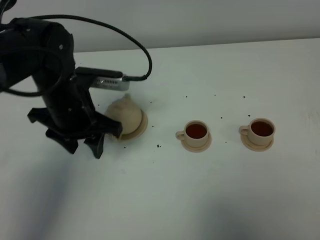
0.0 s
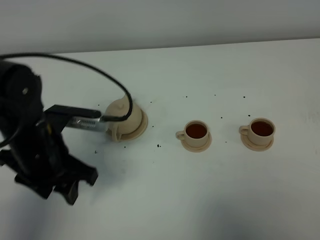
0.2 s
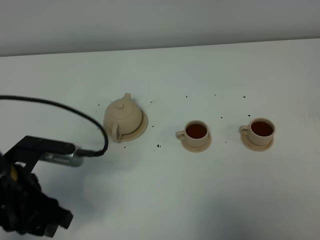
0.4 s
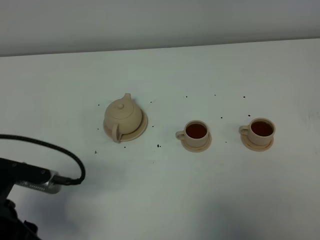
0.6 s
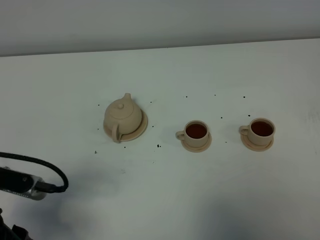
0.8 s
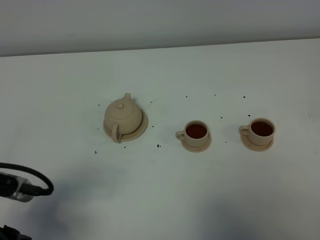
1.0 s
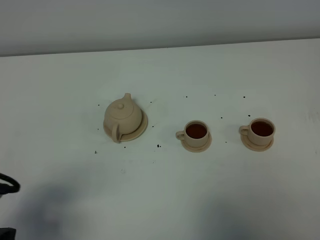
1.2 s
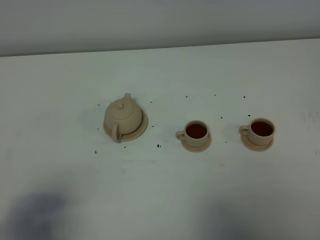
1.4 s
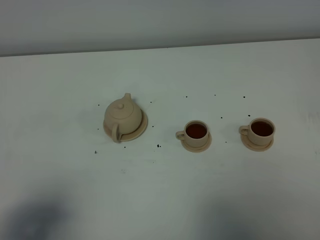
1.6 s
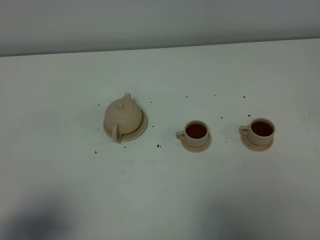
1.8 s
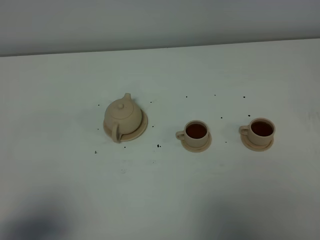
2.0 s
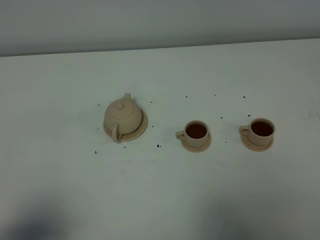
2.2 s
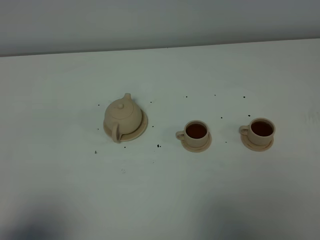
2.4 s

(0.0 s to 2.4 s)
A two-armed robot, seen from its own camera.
Task of the whole recording: grasp the brown teapot and pour the tea into the two brown teacups one by one, put the brown teapot back in its original place.
0.0 s - 1.2 s: The left gripper is displaced backward and to the left by about 25 cm.
1.2 s - 2.4 s: The left gripper travels backward by some 10 cm.

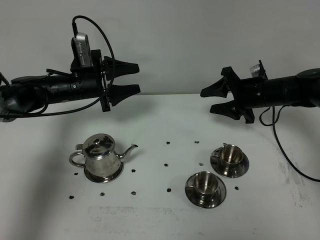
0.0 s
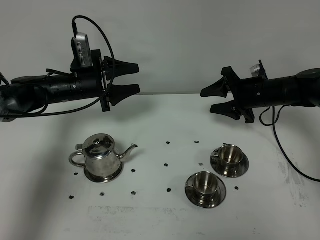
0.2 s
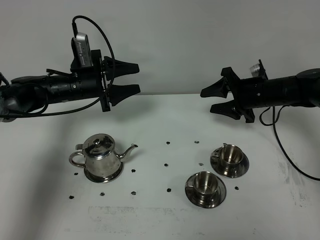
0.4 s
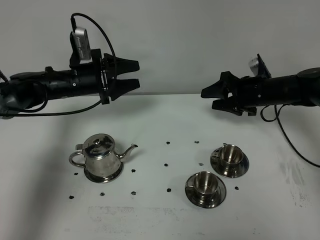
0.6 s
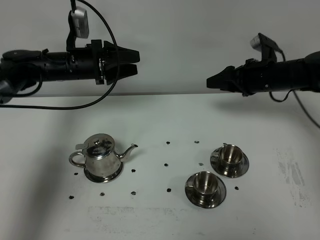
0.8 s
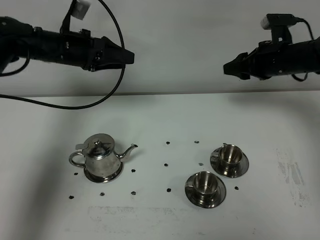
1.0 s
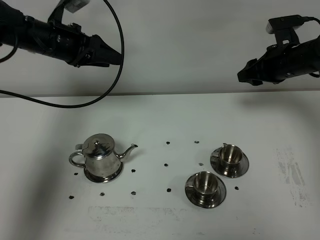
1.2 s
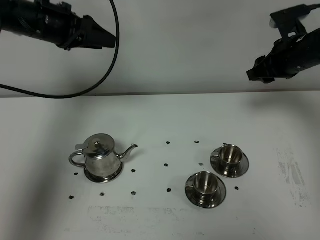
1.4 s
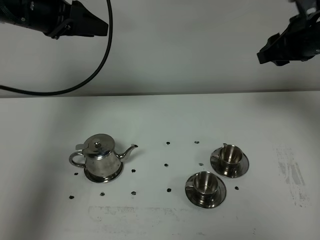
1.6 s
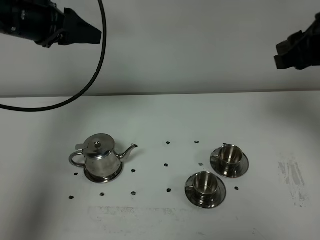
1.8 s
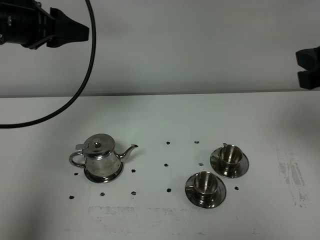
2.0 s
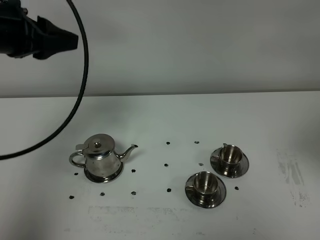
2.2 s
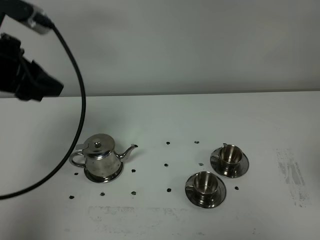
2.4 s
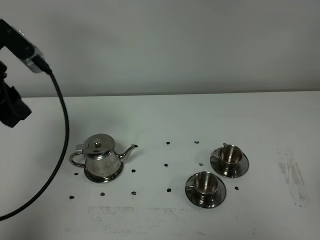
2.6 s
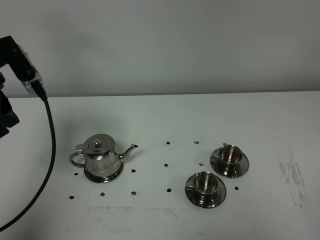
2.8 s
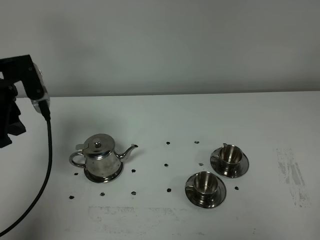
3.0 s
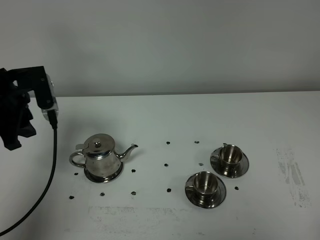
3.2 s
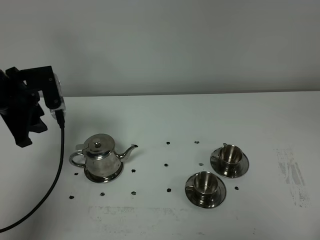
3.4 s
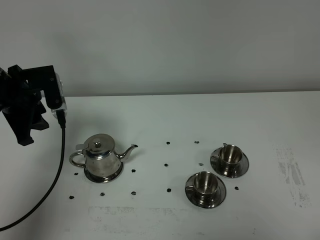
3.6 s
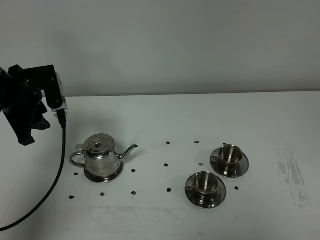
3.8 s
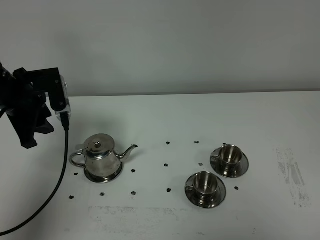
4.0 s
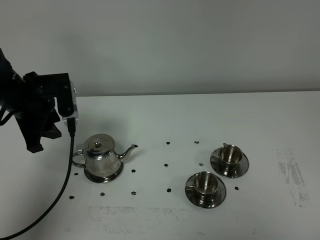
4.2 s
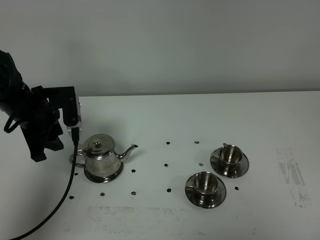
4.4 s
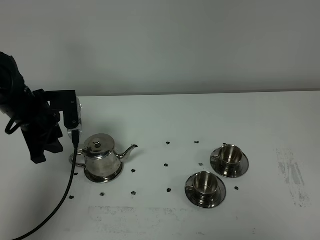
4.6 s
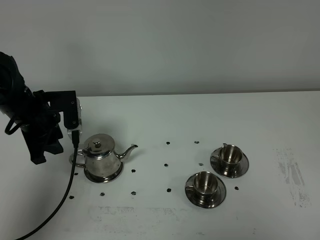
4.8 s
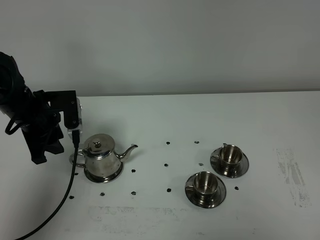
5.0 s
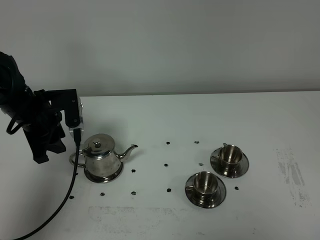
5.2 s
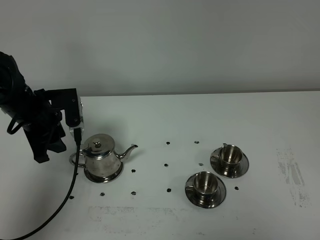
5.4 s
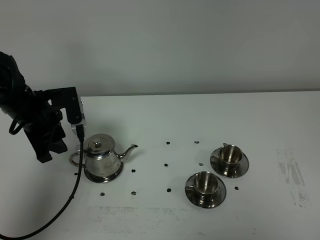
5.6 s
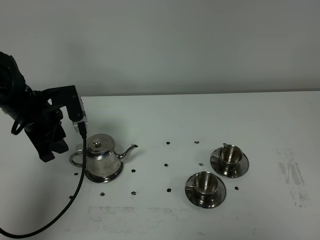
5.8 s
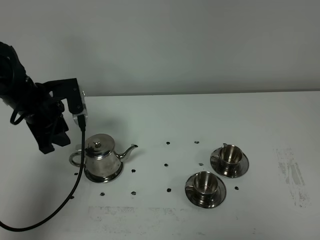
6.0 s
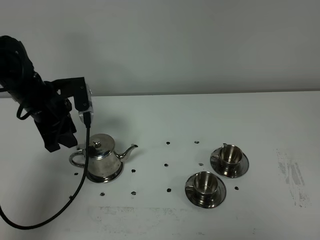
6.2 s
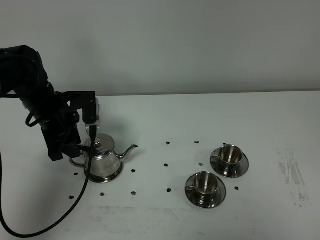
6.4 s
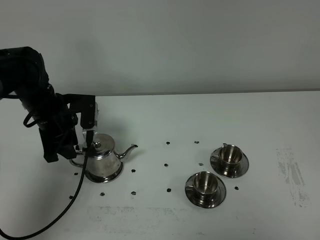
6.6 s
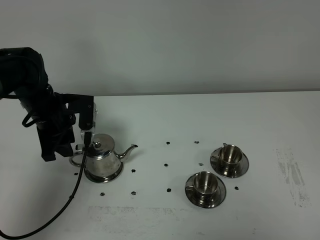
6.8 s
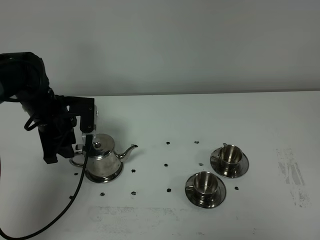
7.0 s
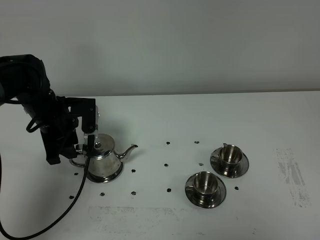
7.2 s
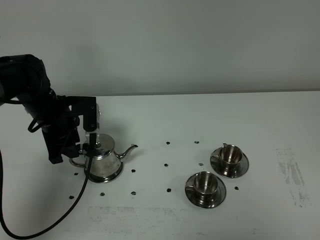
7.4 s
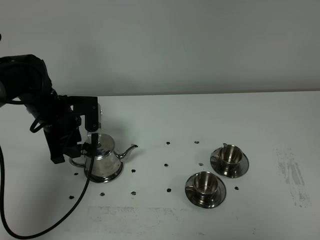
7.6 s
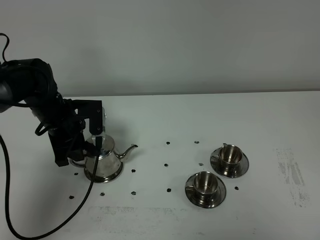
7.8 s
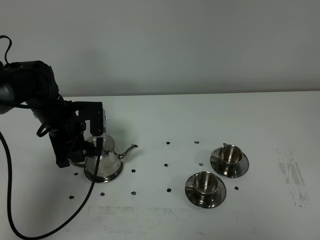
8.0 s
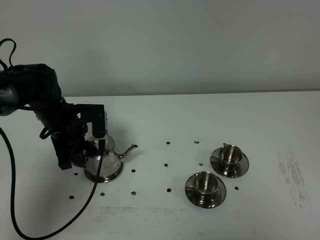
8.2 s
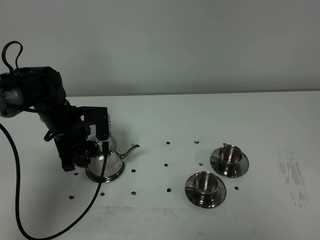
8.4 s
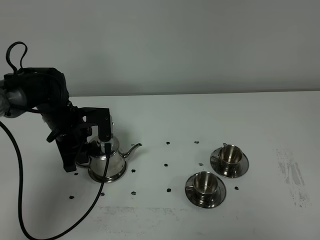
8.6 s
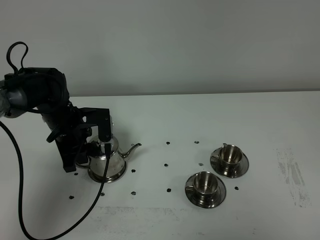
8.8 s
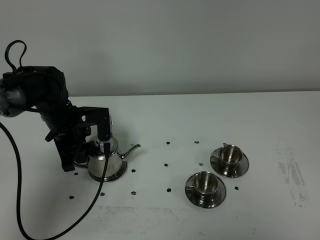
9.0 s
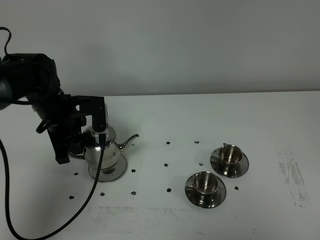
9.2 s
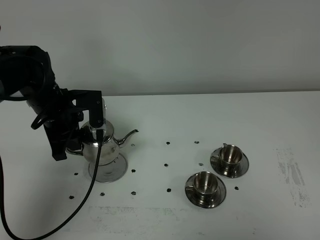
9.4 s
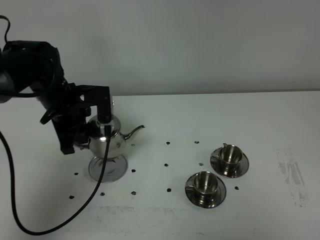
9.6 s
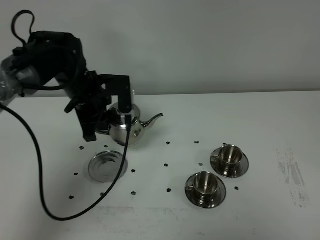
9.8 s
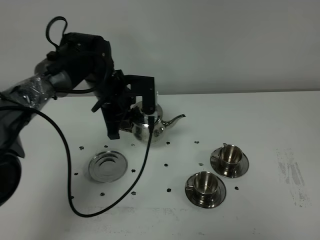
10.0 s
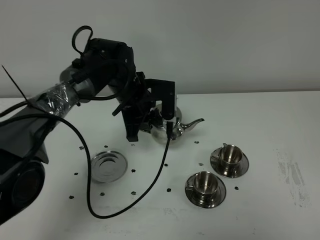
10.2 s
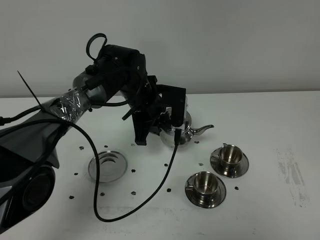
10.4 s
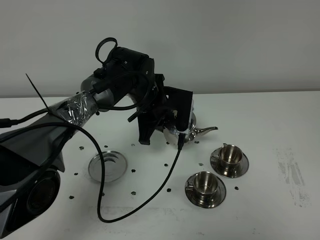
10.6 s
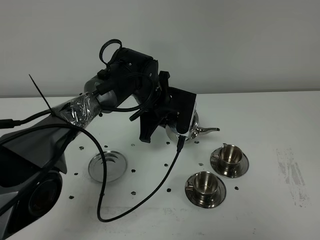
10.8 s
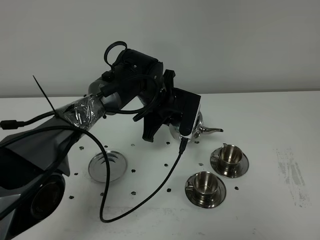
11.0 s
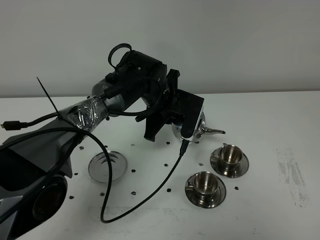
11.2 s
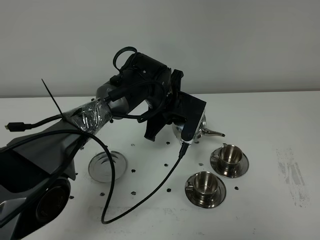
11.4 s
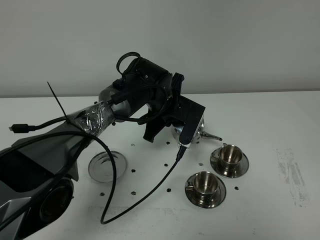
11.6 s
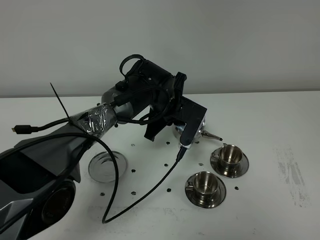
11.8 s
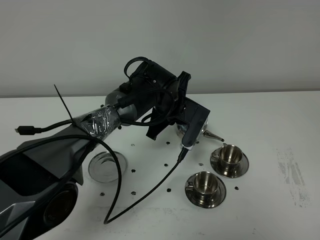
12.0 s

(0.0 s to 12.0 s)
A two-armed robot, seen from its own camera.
Task of the whole recording: grasp the stainless steel teapot and pour the tea into the two stainless steel teacups one by one, put the stainless steel teapot back in its original place.
Step, 0.0 s - 9.2 s: Pick up the teapot with the left gripper.
0.0 s - 1.6 s: The left gripper moves upward, some 20 cm; the right gripper travels upward and backward by about 20 cm, and closes.
1.6 s - 3.0 s: The left gripper shifts roughly 15 cm backward, downward and to the left; the right gripper is displaced backward by roughly 40 cm.
3.0 s - 4.4 s: The left gripper is displaced downward by some 10 cm.
4.4 s - 7.6 s: The grippers stay close to where they were, moving slightly.
7.6 s - 9.0 s: The left gripper closes its fingers.
9.0 s - 10.4 s: The left gripper goes about 15 cm to the right.
10.4 s - 12.0 s: The left gripper travels to the right by about 5 cm.

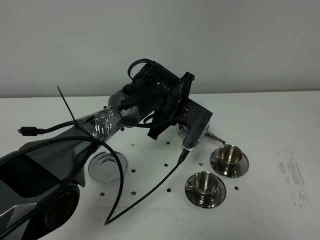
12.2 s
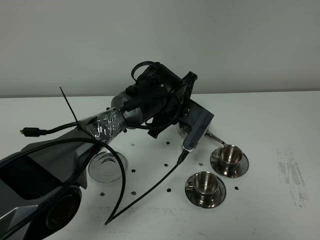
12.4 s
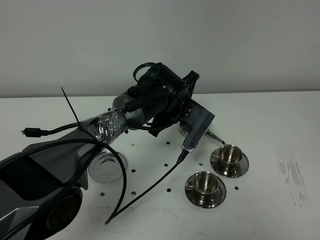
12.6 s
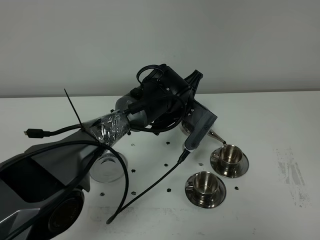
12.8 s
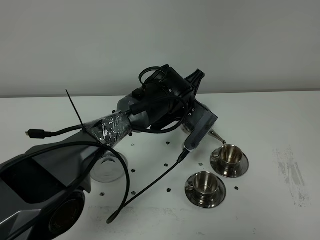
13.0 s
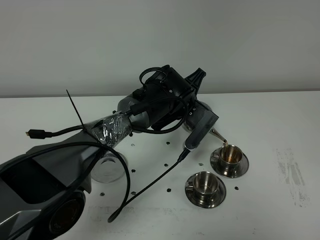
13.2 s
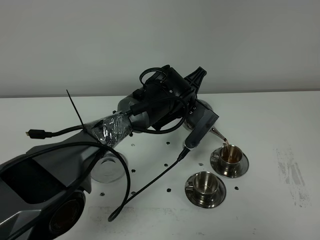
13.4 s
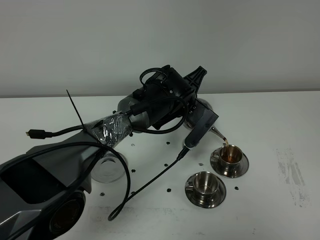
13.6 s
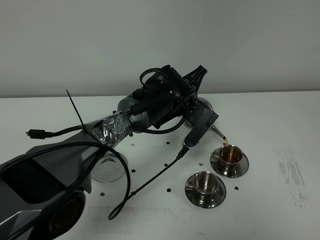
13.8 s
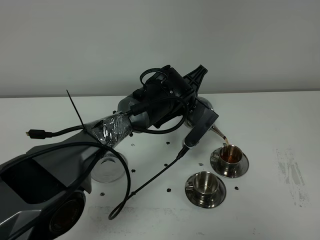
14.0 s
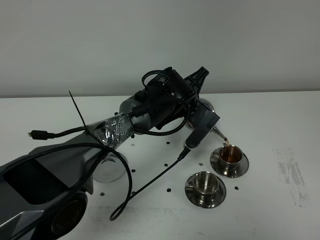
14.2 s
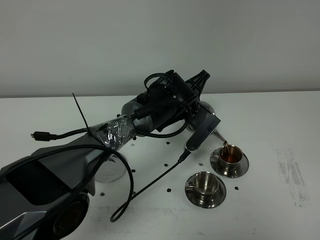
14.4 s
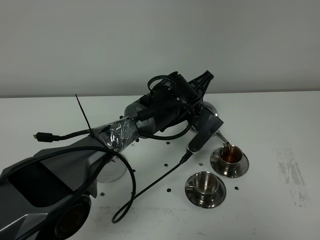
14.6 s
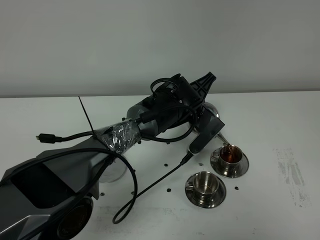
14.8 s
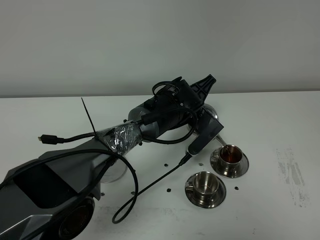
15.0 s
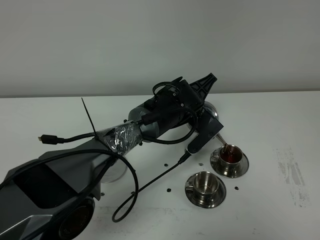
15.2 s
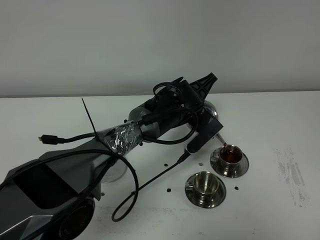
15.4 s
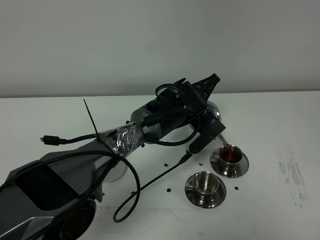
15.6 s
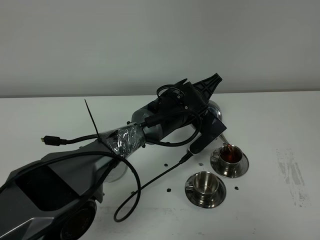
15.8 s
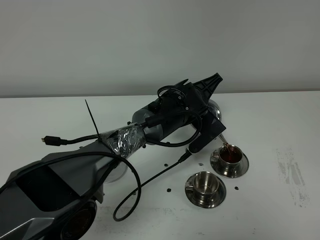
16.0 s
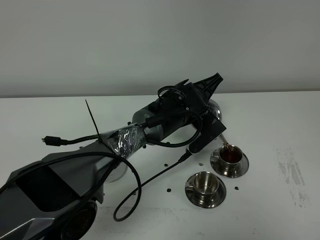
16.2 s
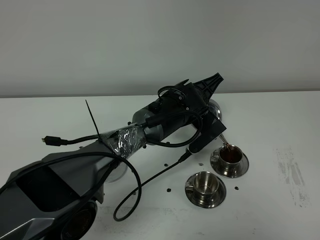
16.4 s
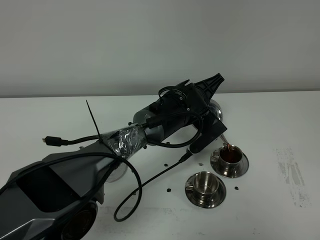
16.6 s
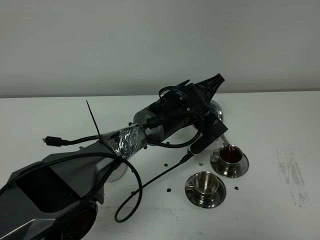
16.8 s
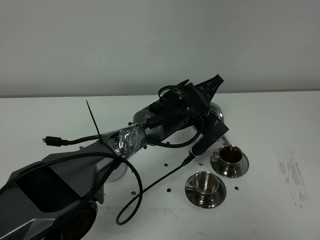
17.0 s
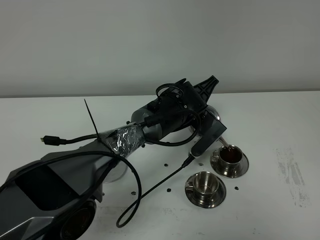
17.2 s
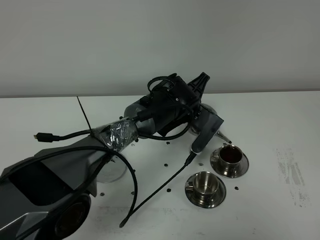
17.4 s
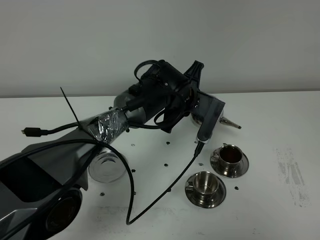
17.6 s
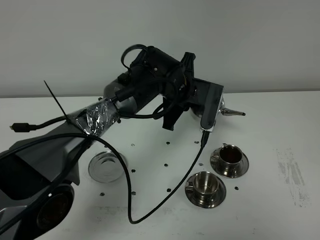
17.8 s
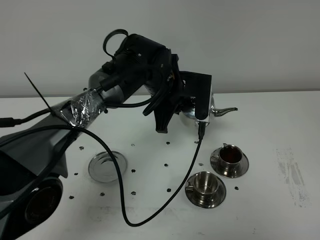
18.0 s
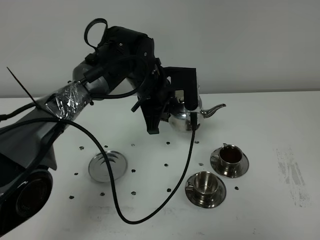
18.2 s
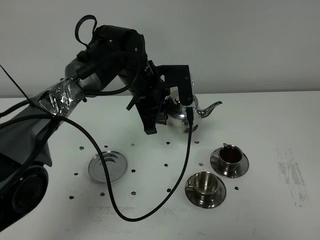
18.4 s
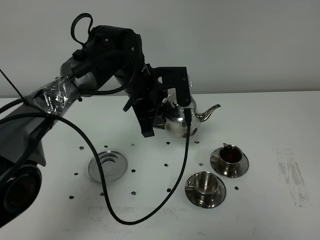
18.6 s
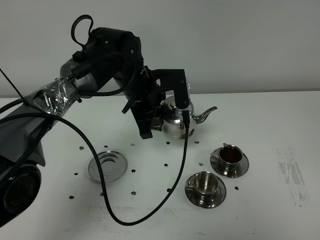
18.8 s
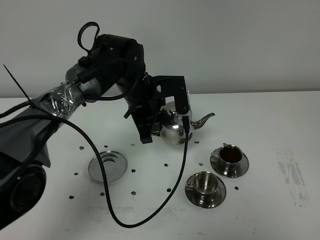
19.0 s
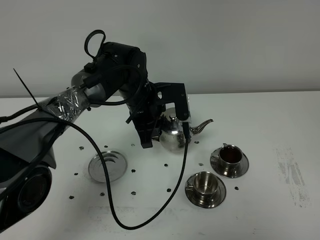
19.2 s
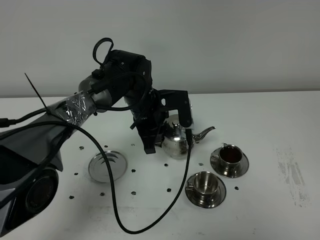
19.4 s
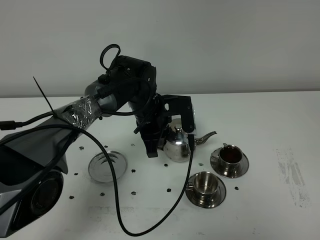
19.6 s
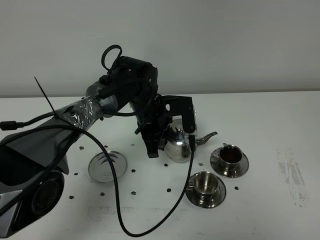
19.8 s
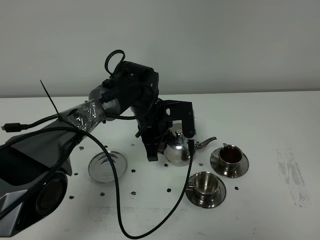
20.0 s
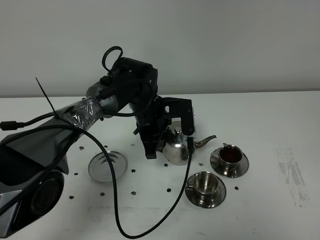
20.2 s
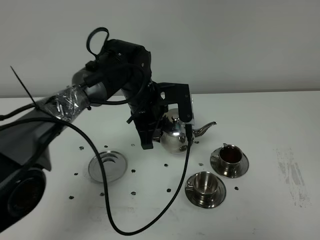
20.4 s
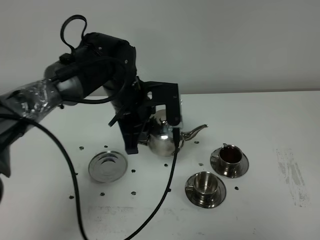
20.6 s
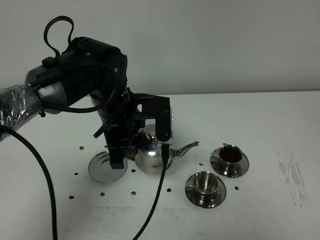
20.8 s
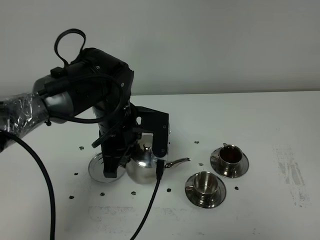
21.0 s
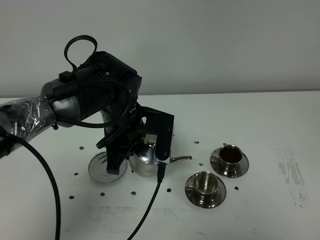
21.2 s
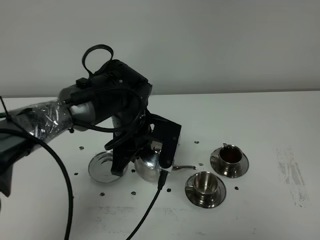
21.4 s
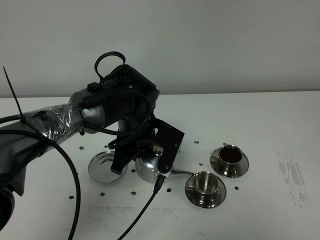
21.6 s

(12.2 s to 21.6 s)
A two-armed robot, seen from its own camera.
Task of the whole recording: grasp the stainless steel teapot and pour the tea into the two stainless steel teacups one by one, put the stainless steel teapot back in its original place.
12.2 s - 13.8 s: The grippers make only small movements.
13.8 s - 15.4 s: There are only small adjustments of the grippers.
15.4 s - 17.0 s: The two grippers keep their place.
17.0 s - 18.4 s: The left gripper shifts roughly 10 cm to the left and upward.
18.4 s - 20.0 s: The left gripper goes some 10 cm downward.
20.0 s - 21.6 s: The left gripper shifts some 5 cm backward.
